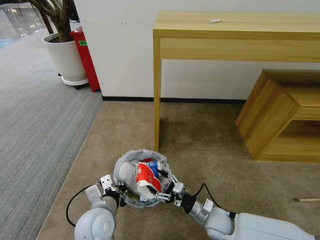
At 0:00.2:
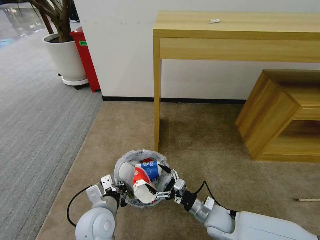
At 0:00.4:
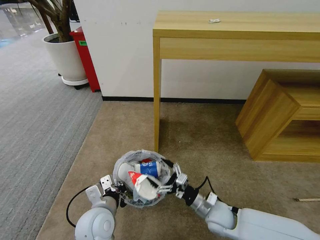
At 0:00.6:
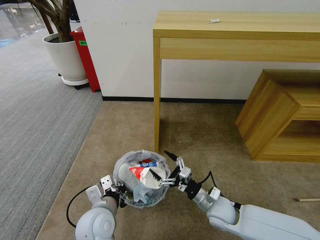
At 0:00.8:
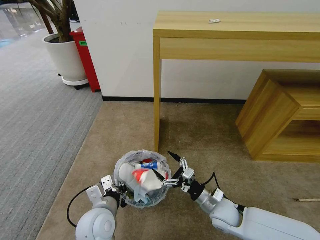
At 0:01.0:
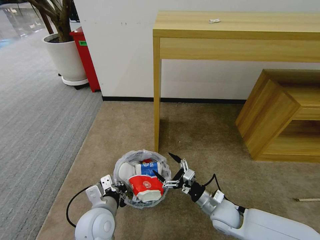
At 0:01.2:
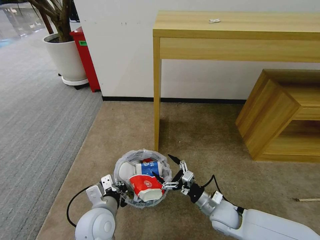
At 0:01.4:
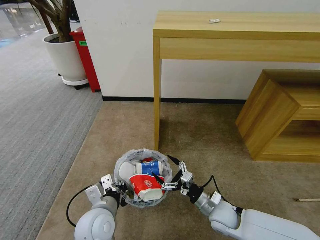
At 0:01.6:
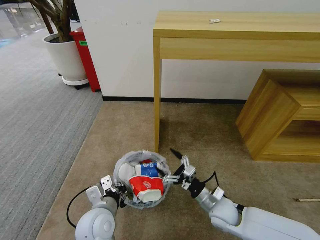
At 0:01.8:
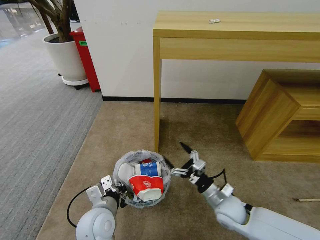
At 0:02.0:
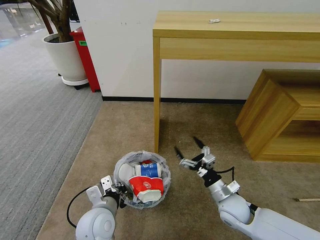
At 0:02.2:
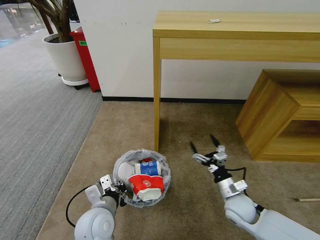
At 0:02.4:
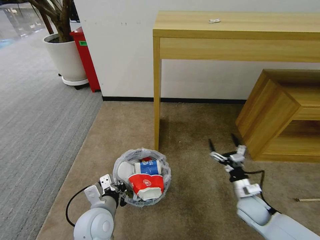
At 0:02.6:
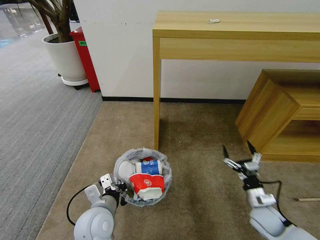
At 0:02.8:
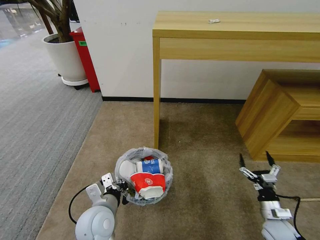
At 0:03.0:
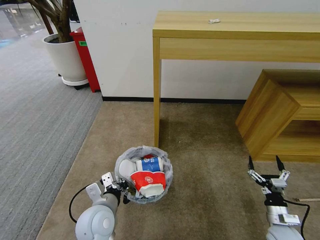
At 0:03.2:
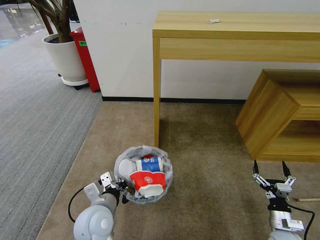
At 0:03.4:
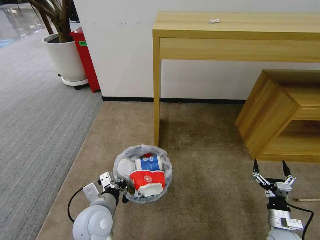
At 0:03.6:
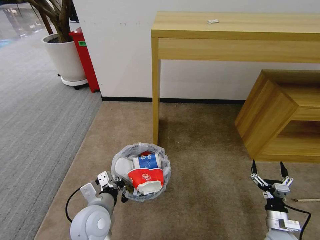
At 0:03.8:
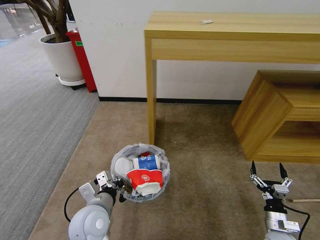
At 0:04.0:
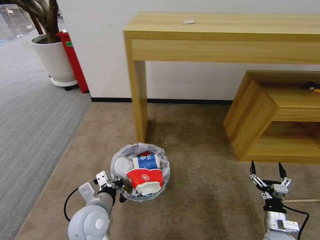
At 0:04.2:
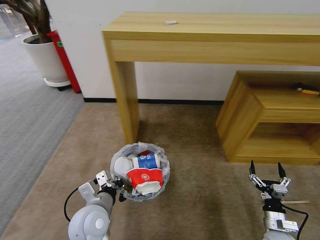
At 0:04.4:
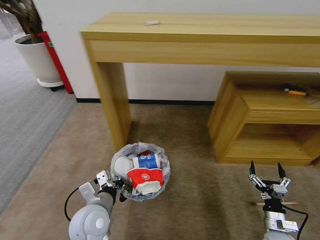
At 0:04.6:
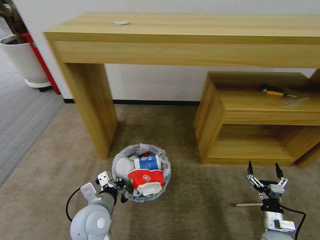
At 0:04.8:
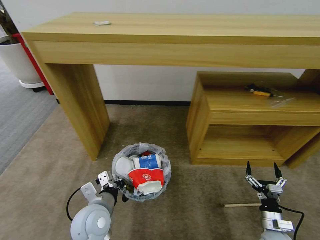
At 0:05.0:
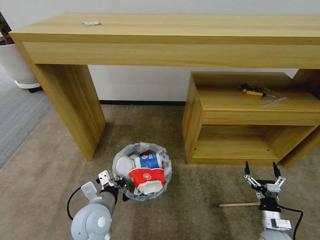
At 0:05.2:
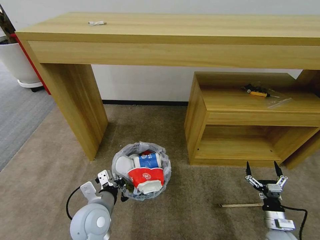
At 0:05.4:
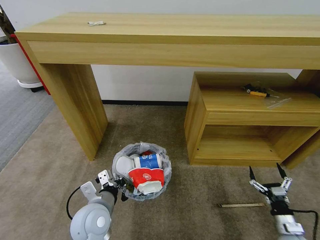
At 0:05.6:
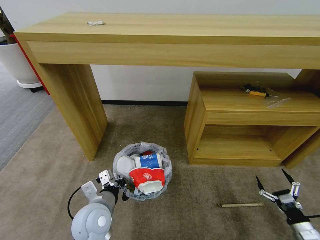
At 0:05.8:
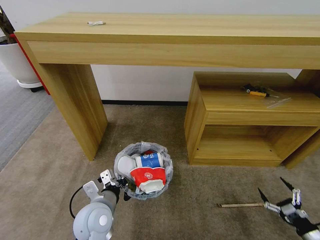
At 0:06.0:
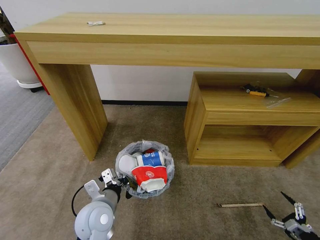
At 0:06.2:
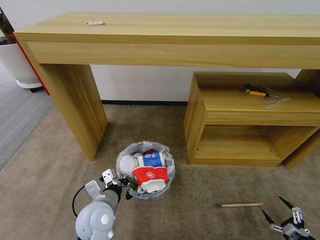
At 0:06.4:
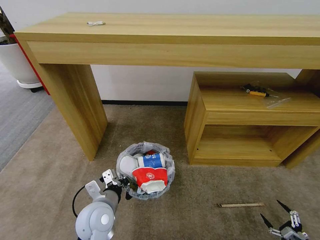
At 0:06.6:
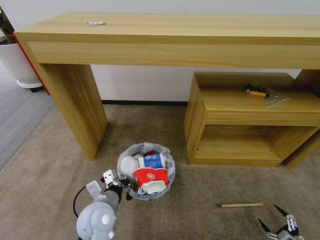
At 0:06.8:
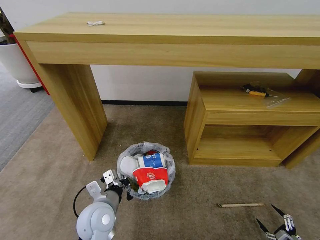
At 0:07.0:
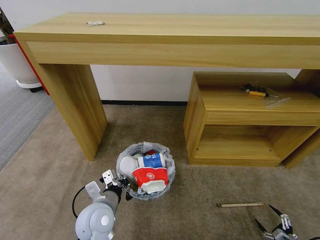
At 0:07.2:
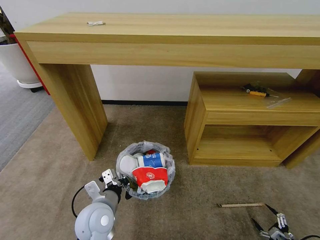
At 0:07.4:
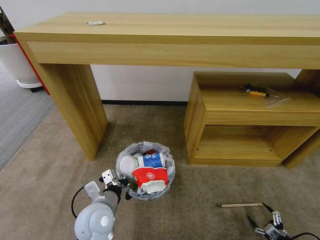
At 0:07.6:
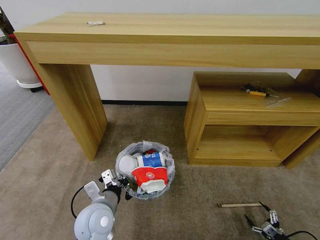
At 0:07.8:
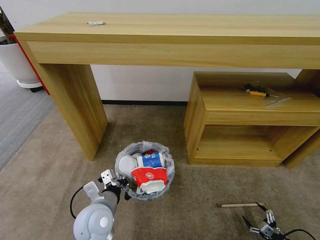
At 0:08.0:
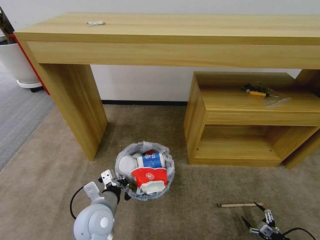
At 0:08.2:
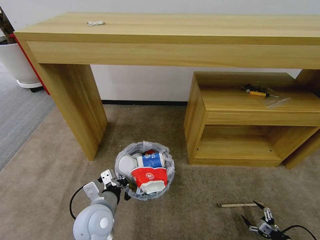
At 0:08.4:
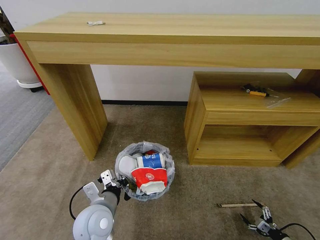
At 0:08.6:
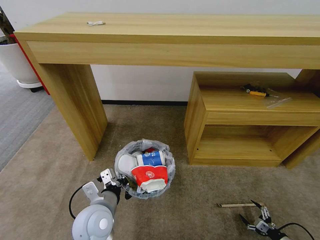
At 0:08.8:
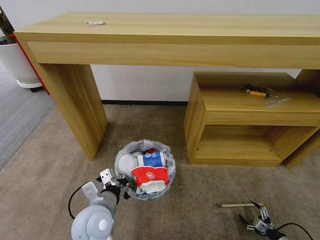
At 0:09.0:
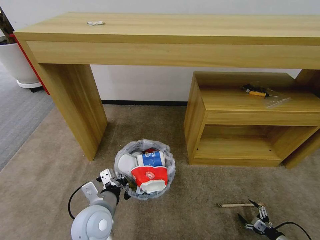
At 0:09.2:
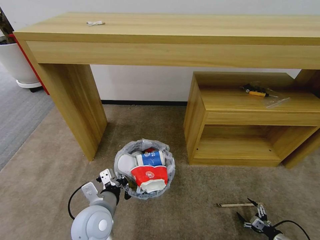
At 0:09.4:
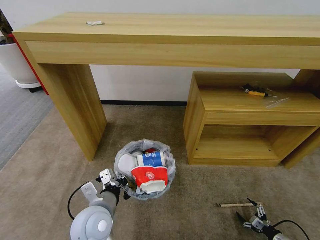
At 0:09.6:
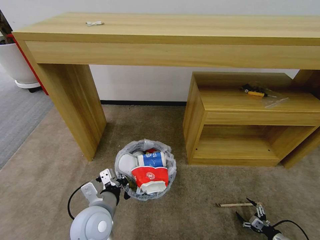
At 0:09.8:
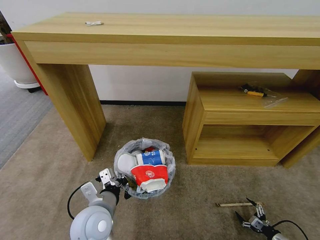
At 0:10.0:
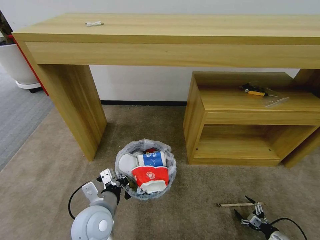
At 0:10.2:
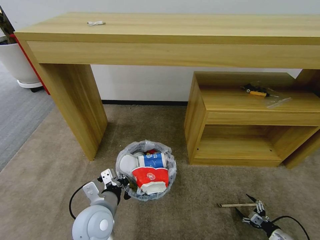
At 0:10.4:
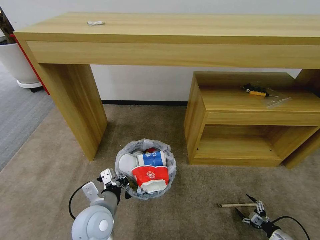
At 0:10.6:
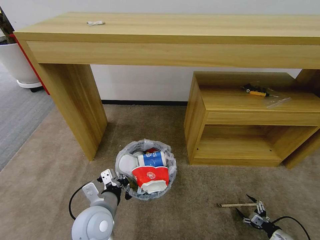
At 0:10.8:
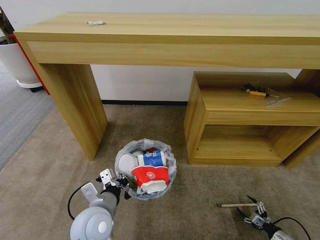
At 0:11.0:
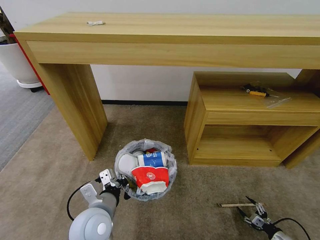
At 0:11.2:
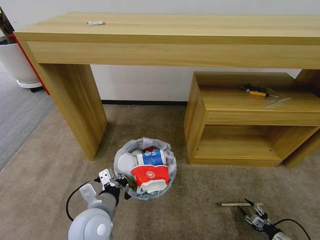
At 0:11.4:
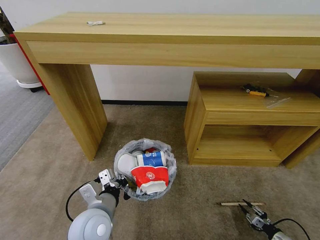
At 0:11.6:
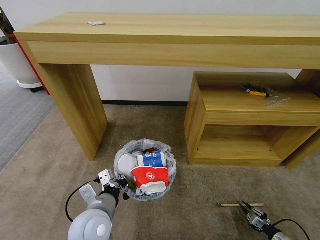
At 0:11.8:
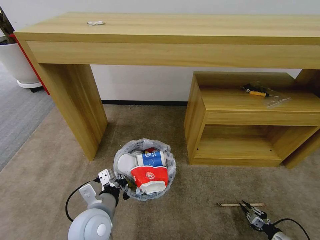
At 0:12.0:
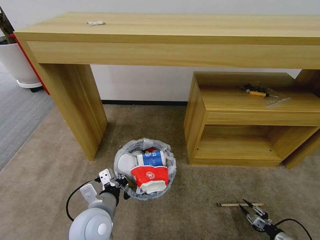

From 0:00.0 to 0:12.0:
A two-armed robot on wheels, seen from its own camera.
Task of the whole recording: Pick up the trash bin and place the garbage on the floor into it.
From 0:00.0 to 0:01.6: There are only small adjustments of the grippers.
From 0:01.6 to 0:03.0: The right gripper moves to the right, roughly 20 cm.
From 0:04.4 to 0:06.0: The right gripper goes roughly 20 cm to the right and backward.
From 0:06.0 to 0:07.6: The right gripper heads downward, covering about 10 cm.
From 0:07.6 to 0:09.0: The grippers move only a little.
From 0:09.0 to 0:10.4: The grippers move only a little.
From 0:10.4 to 0:12.0: The right gripper closes up.

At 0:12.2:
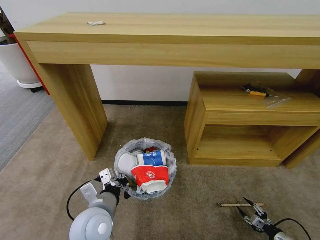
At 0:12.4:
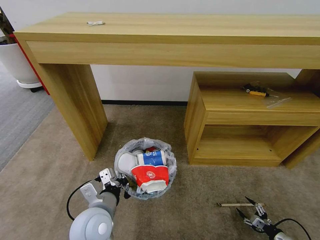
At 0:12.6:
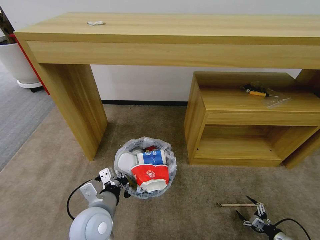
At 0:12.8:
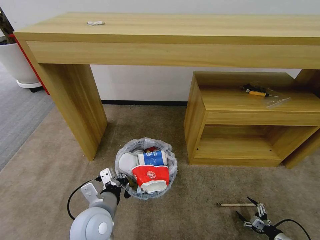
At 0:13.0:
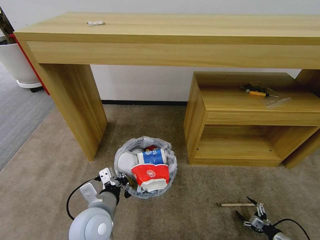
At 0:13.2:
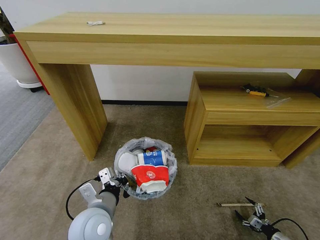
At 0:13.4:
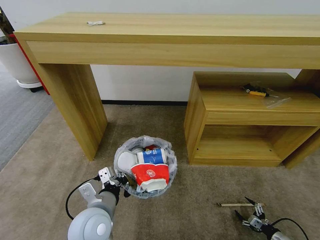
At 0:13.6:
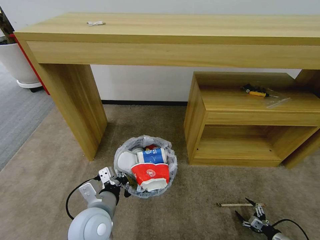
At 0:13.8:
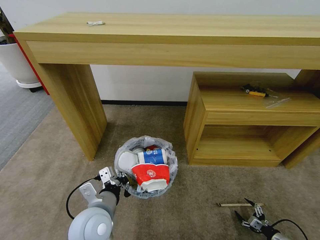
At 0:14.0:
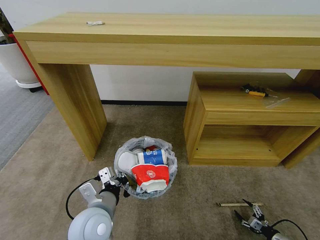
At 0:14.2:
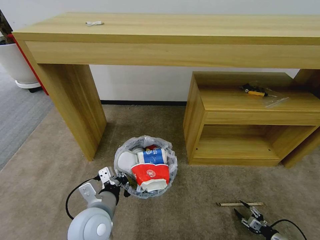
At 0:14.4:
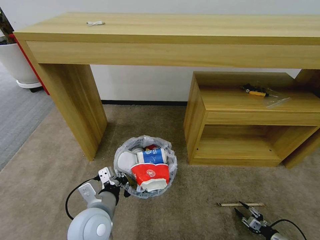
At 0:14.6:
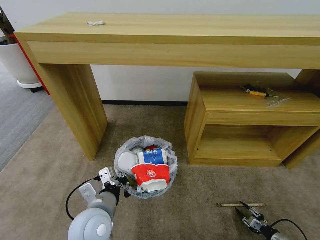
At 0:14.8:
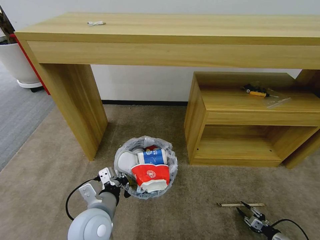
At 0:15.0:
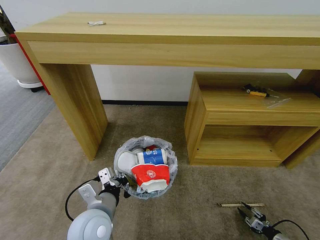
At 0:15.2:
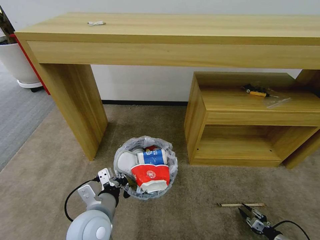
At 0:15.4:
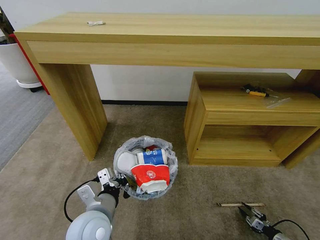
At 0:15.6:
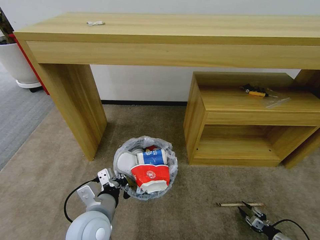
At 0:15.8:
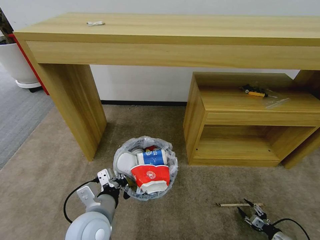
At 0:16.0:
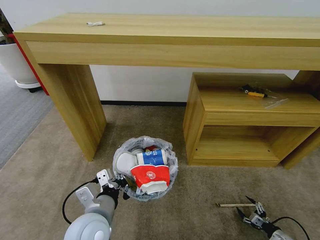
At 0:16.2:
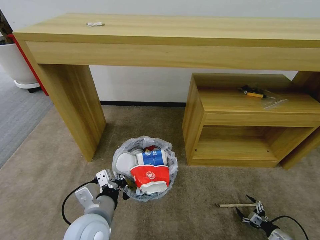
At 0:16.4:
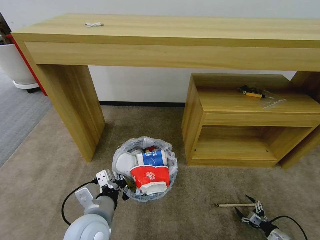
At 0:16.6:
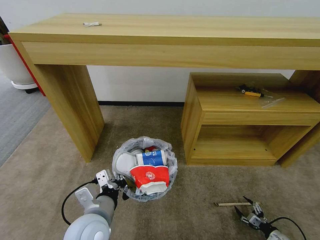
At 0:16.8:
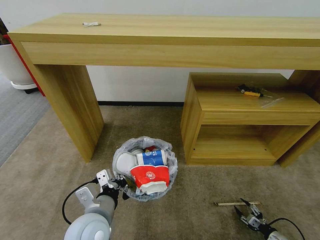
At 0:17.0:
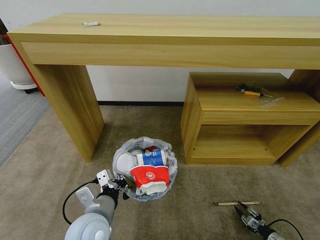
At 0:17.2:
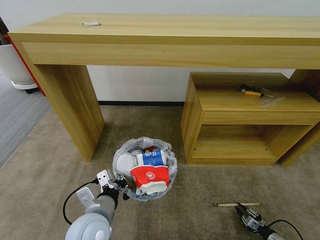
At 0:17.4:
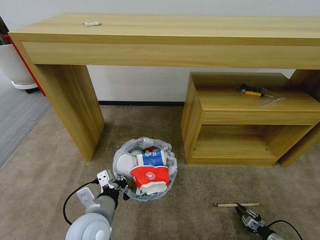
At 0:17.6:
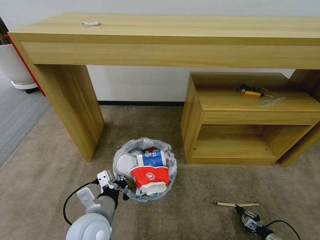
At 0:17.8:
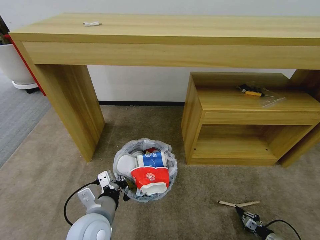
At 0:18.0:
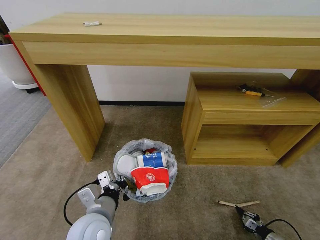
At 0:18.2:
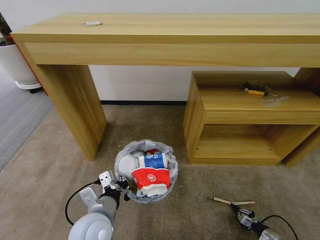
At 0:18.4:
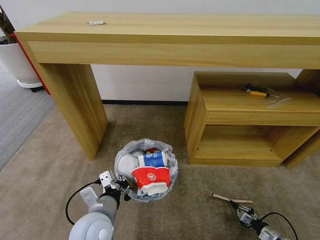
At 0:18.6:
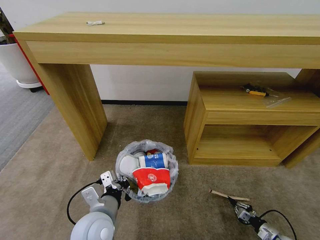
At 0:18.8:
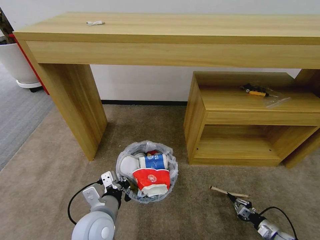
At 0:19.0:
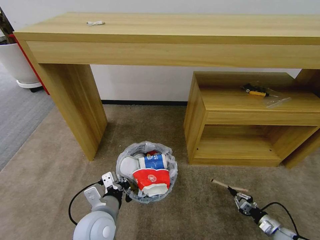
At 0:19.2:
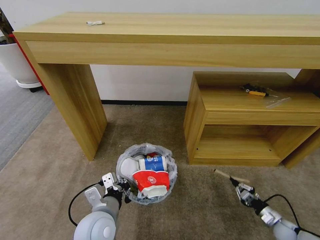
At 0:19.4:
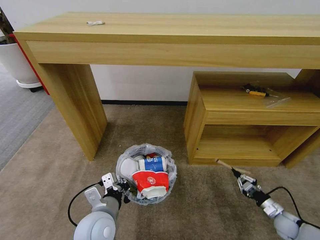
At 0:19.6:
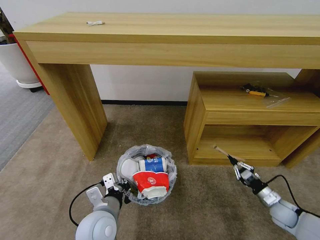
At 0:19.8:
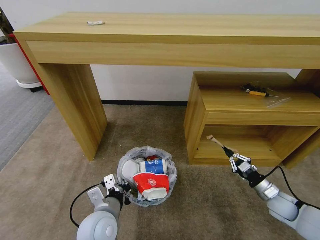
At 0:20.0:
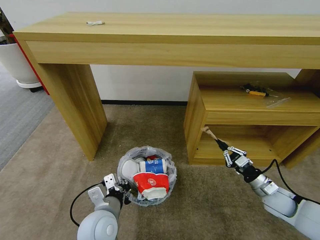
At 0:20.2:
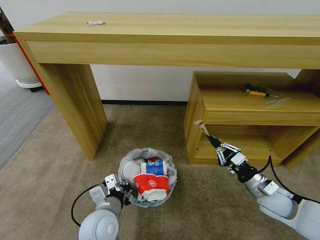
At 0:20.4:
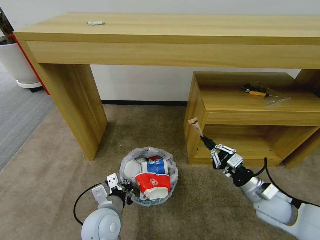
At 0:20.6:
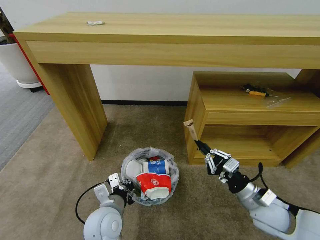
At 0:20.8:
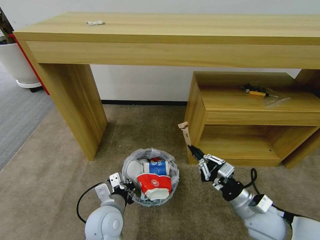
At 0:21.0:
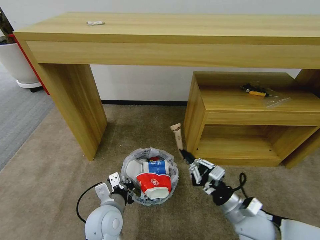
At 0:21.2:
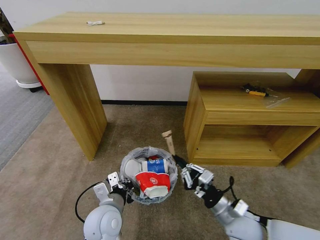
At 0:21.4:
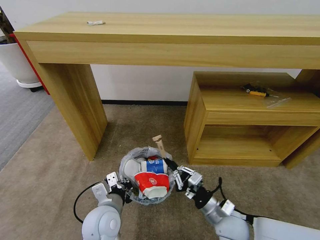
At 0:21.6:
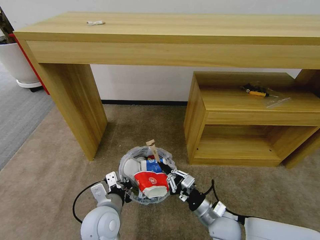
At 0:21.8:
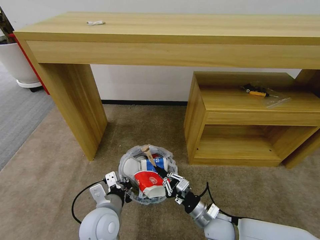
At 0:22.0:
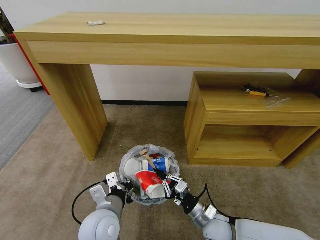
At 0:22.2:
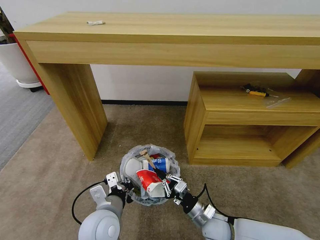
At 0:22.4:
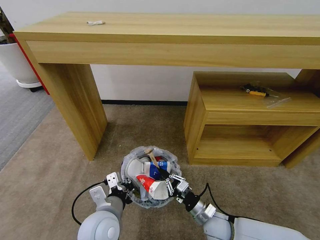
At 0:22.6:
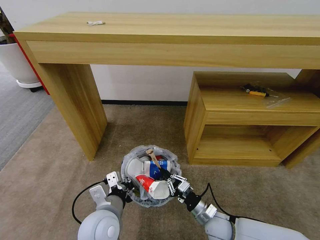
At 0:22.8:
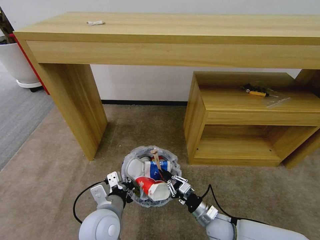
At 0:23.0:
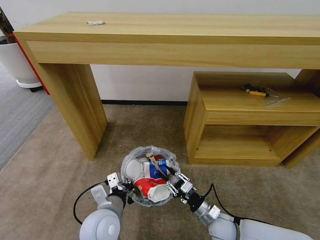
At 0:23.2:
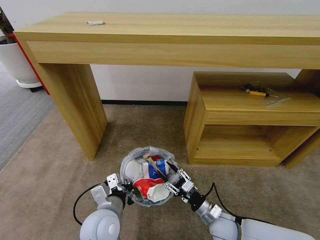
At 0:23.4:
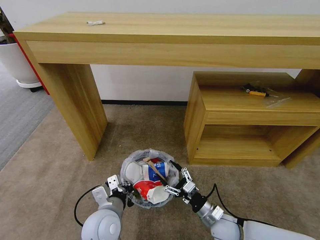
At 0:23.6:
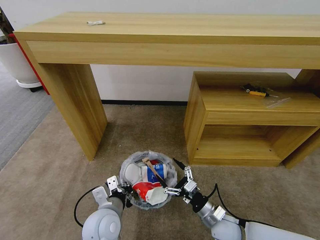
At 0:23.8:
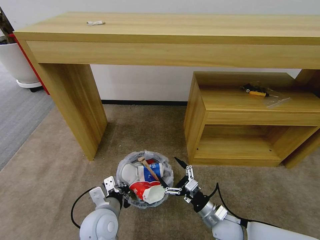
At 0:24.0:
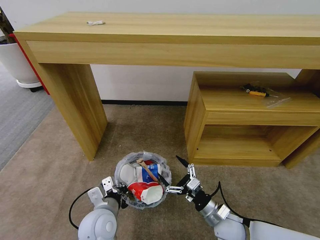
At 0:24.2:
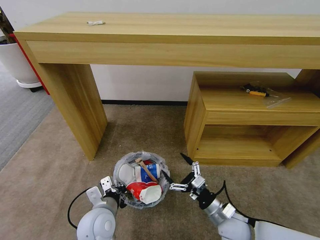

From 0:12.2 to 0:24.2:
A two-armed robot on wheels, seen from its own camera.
Task of the whole recording: Pick up the trash bin and place the garbage on the floor into it.
From 0:12.2 to 0:13.8: The grippers stay close to where they were, moving slightly.
From 0:13.8 to 0:15.2: The right gripper closes up.
From 0:15.2 to 0:16.6: The right gripper opens up.
From 0:16.6 to 0:18.2: The right gripper closes up.
From 0:18.2 to 0:19.8: The right gripper shifts some 20 cm upward and forward.
From 0:19.8 to 0:21.2: The right gripper shifts approximately 25 cm to the left and upward.
From 0:21.2 to 0:22.6: The right gripper heads downward, covering about 10 cm.
From 0:22.6 to 0:24.2: The right gripper moves upward, some 5 cm, and opens up.
